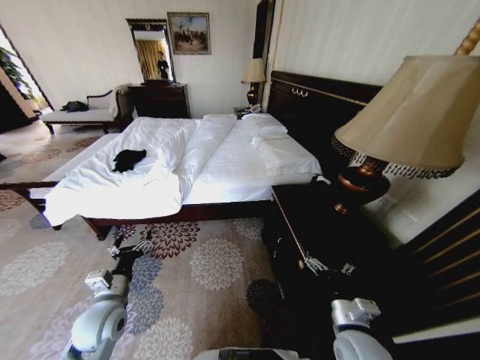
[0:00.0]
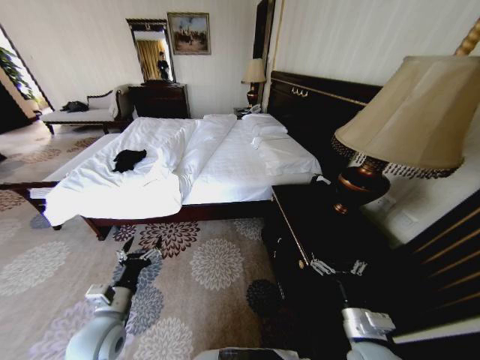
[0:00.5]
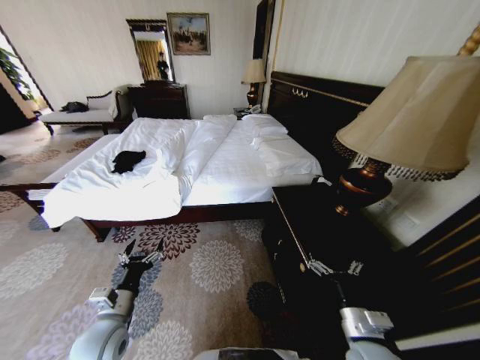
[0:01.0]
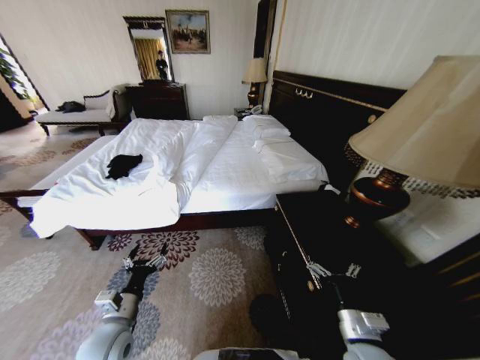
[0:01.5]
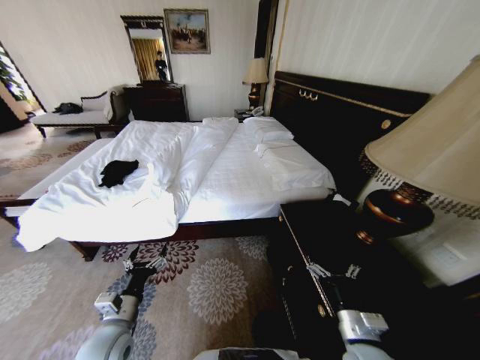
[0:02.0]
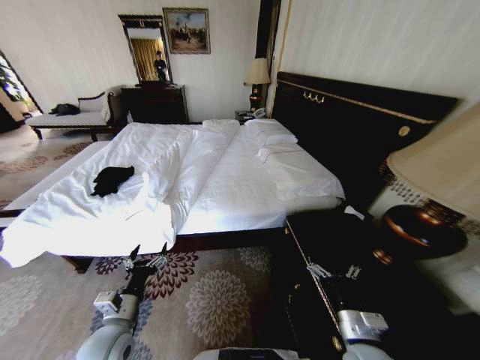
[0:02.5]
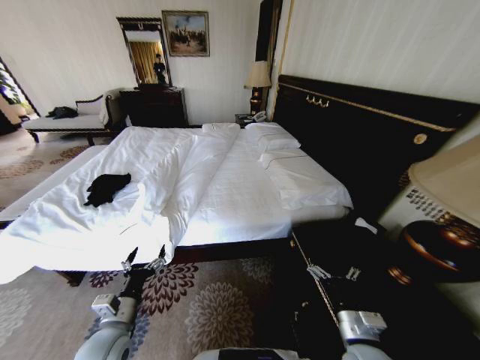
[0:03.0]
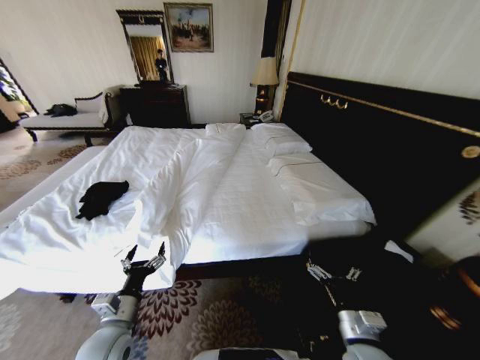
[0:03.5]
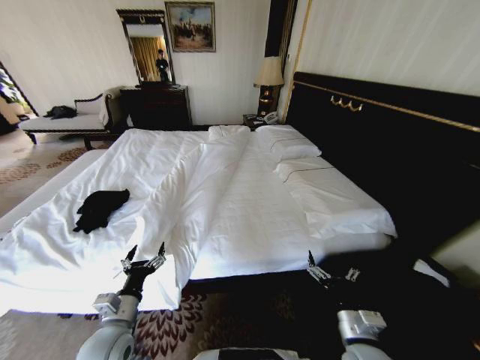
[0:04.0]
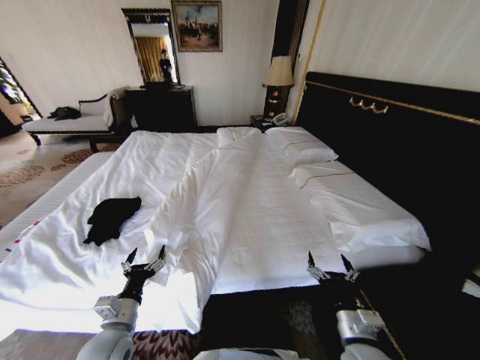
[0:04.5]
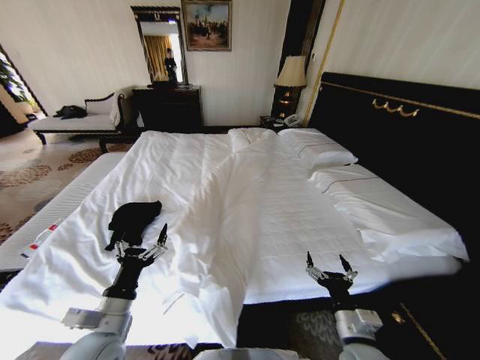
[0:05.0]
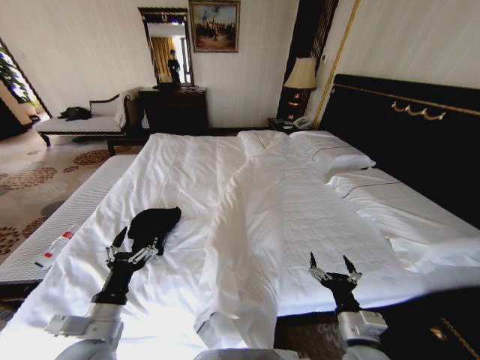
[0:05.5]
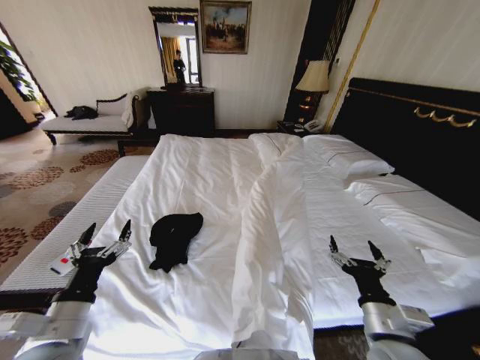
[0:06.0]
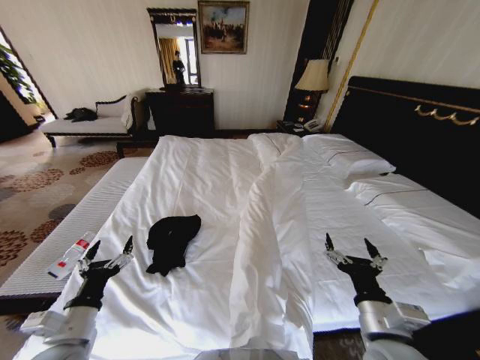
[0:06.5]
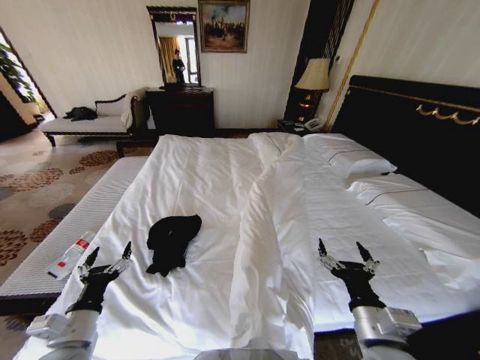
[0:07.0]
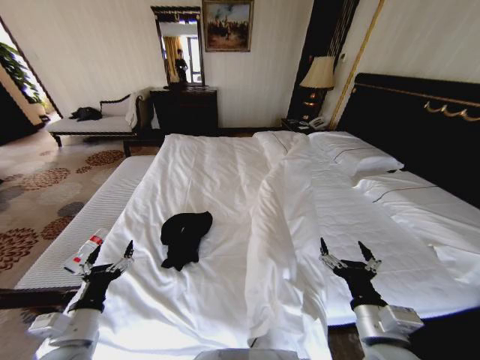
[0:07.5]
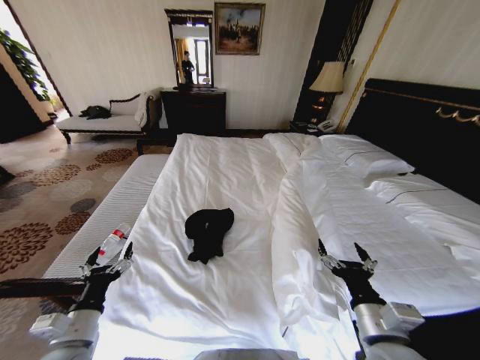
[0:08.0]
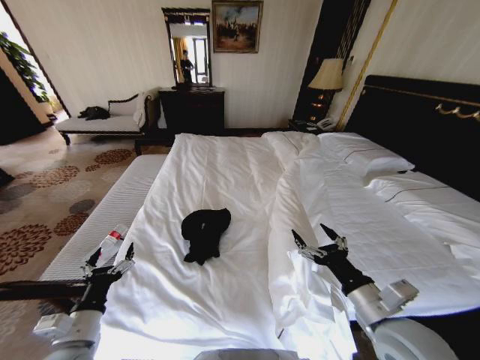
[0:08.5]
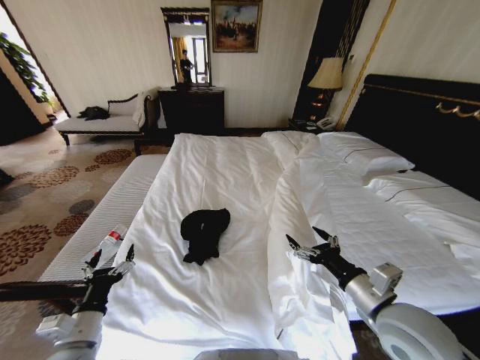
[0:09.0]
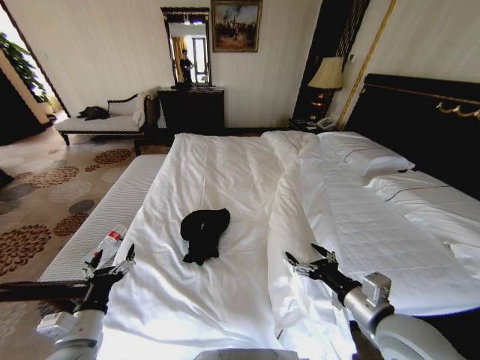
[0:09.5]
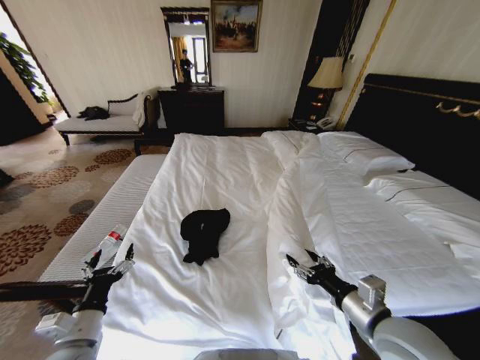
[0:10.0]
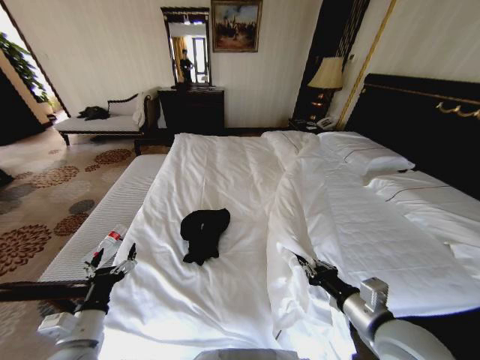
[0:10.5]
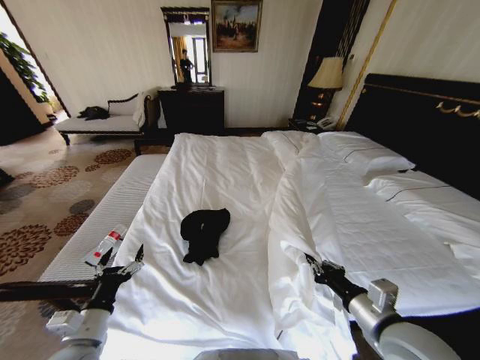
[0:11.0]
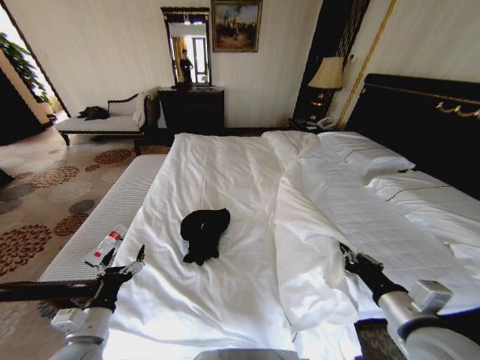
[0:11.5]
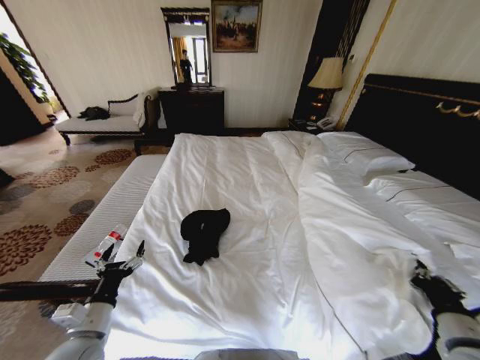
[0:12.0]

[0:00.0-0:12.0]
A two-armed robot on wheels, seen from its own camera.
Task of the whole recording: Fold the clothes on the bed.
0:04.0 to 0:06.0: The left gripper goes approximately 10 cm upward. The right gripper moves upward, some 5 cm.
0:06.0 to 0:08.0: The left gripper is displaced downward by some 10 cm.
0:10.0 to 0:12.0: The right gripper goes approximately 15 cm to the right, and closes its fingers.

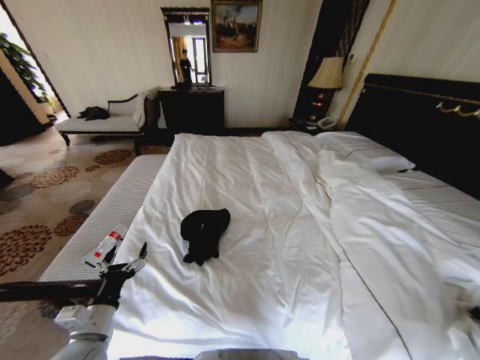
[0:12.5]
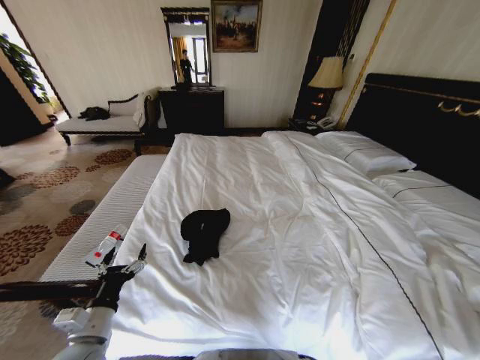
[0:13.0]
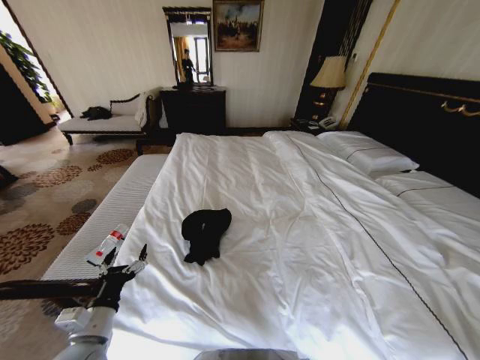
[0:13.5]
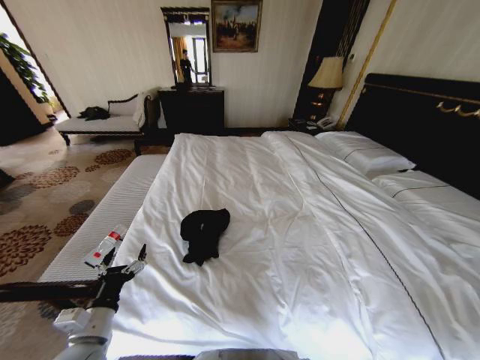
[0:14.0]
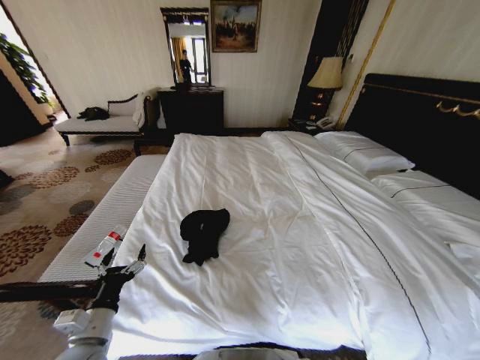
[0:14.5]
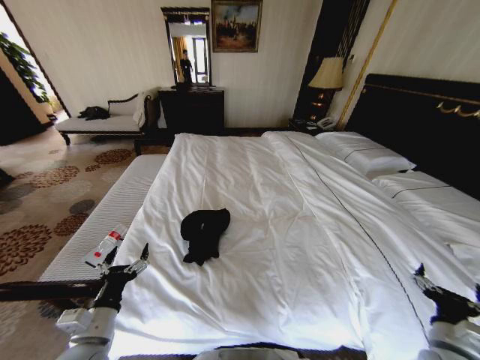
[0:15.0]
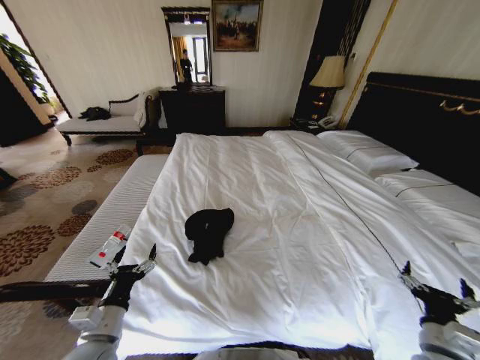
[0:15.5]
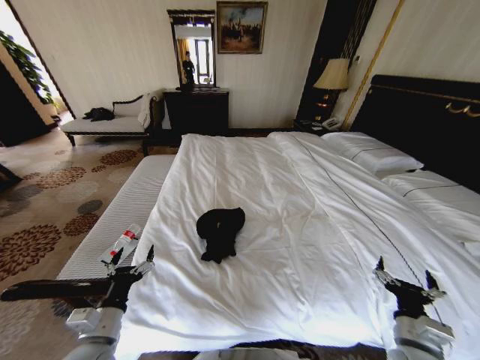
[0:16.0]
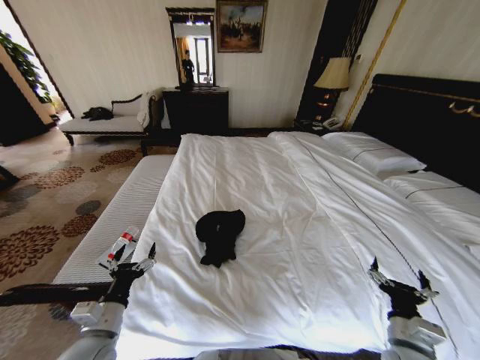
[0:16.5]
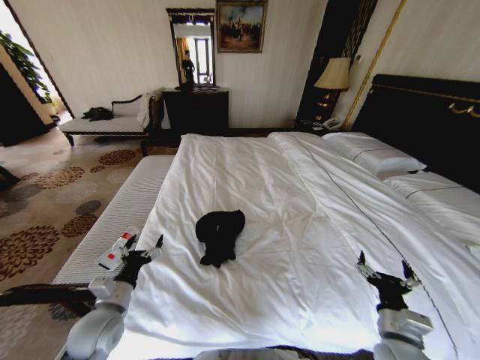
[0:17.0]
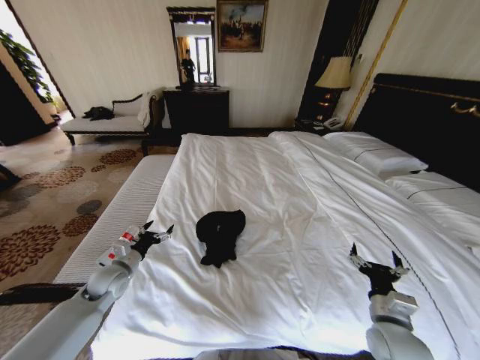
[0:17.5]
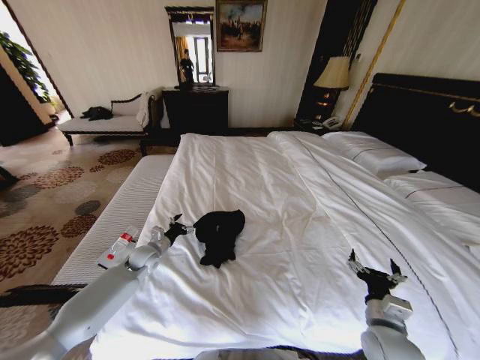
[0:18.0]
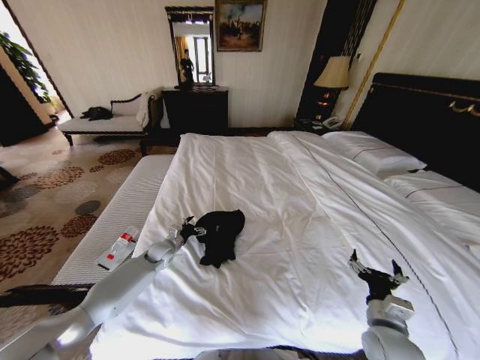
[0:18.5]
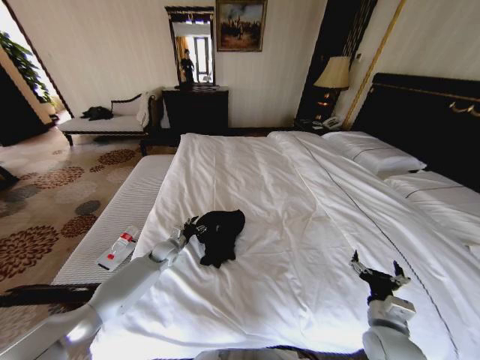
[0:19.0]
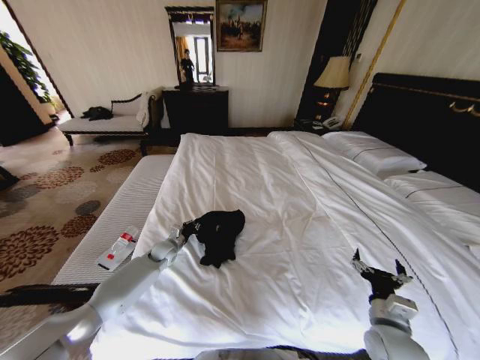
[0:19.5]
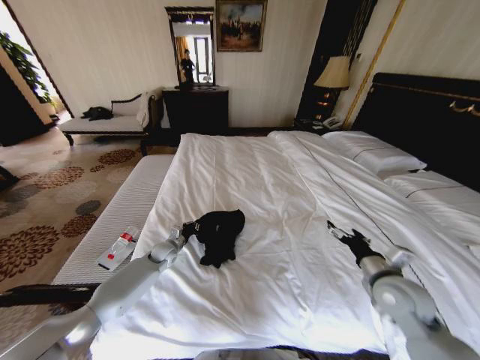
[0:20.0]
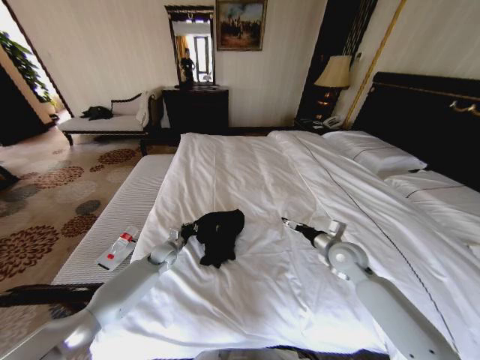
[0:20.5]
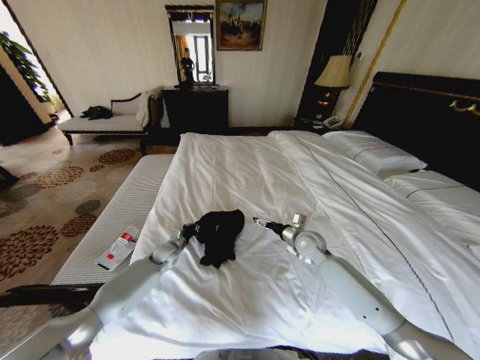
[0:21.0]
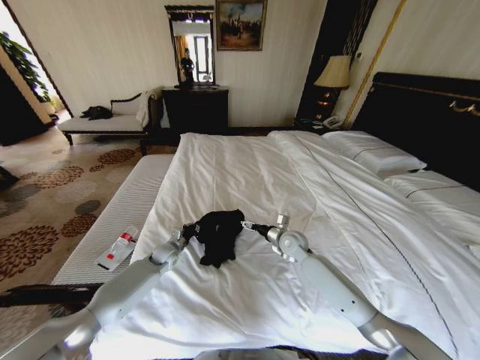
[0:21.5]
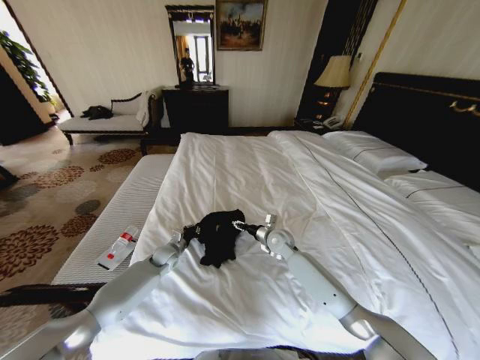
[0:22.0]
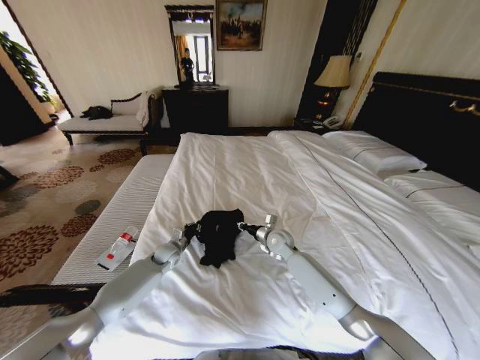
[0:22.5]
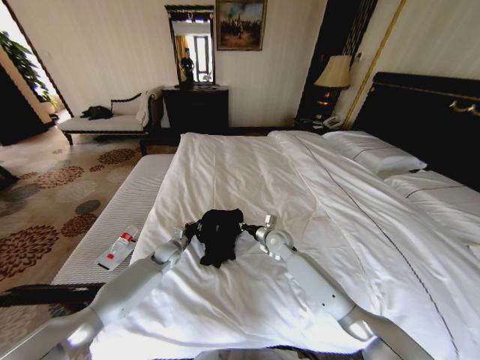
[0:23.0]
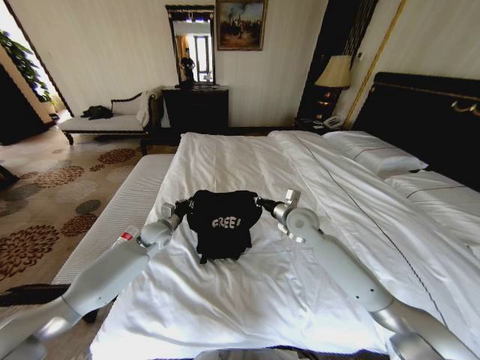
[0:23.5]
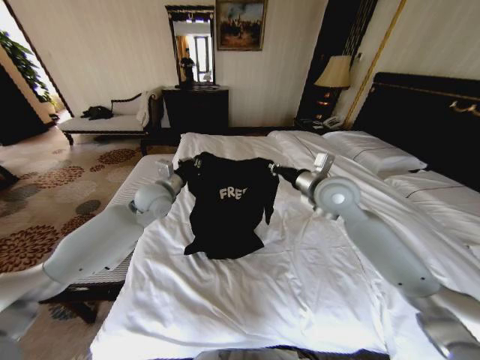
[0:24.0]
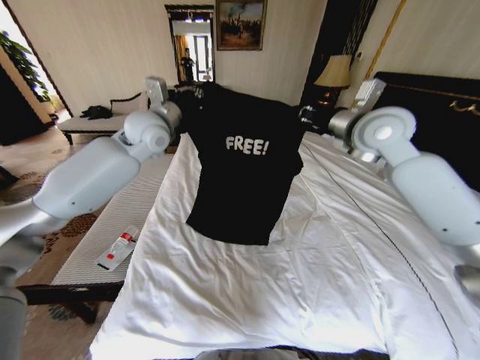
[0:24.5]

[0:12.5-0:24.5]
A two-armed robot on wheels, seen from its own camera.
Task of the whole recording: Fold the clothes on the bed.
0:12.5 to 0:14.5: The right gripper moves to the right and downward, about 10 cm, and opens.
0:14.5 to 0:16.5: The right gripper travels to the left by approximately 25 cm.
0:16.5 to 0:18.5: The left gripper travels forward by approximately 30 cm.
0:18.5 to 0:20.5: The right gripper heads forward, covering roughly 20 cm. Meanwhile the left gripper closes its fingers.
0:20.5 to 0:22.5: The right gripper goes approximately 20 cm to the left and forward, and closes.
0:22.5 to 0:24.5: The grippers both shift upward by roughly 40 cm.

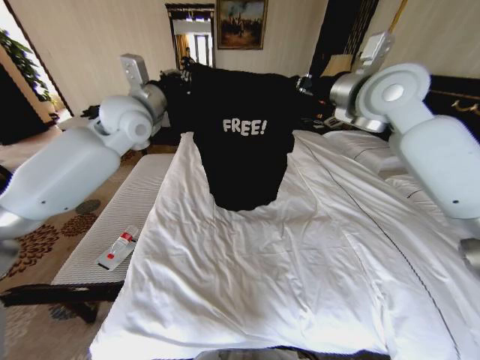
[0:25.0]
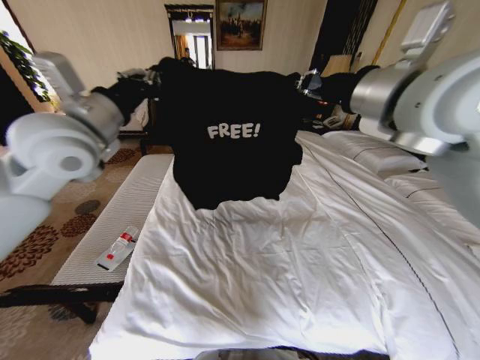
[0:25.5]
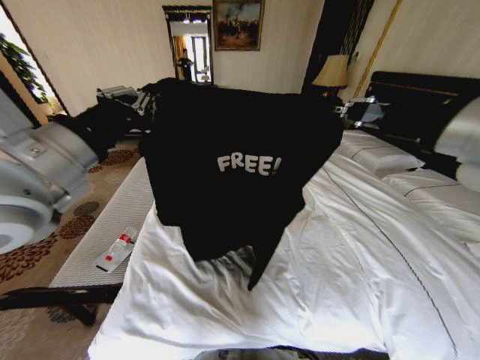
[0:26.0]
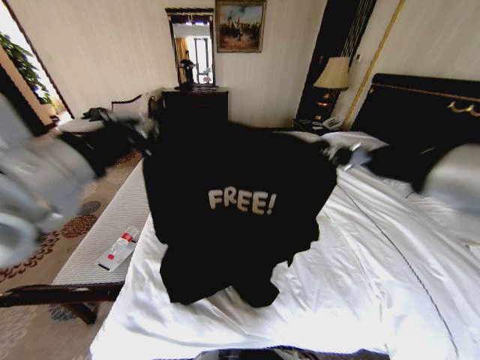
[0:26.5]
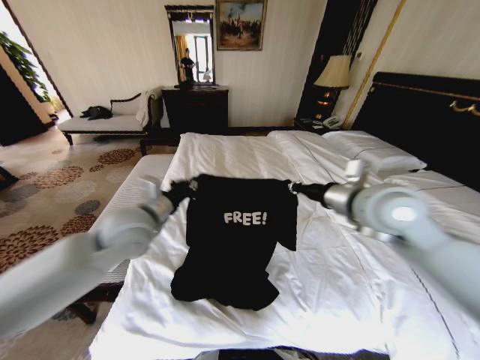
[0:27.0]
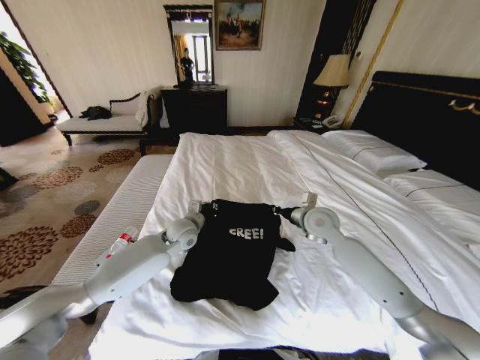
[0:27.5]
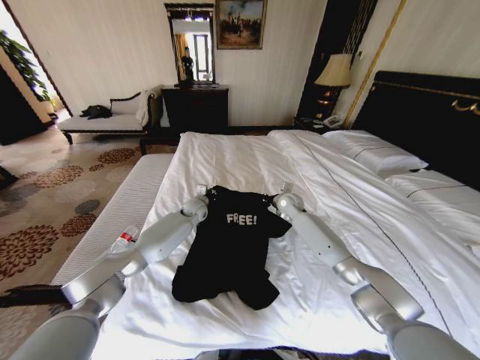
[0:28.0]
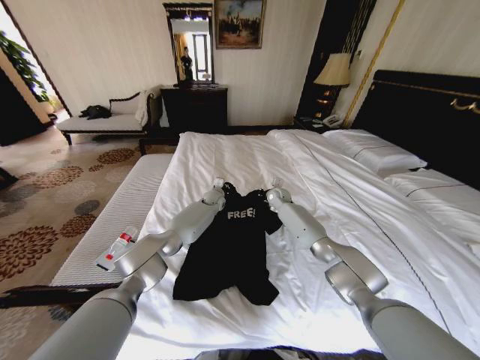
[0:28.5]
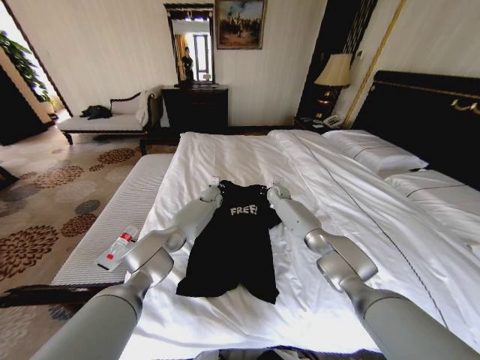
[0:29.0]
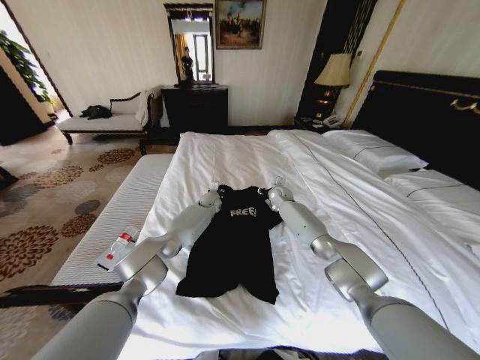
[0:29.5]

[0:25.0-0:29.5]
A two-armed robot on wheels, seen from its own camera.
Task of the whole recording: Fold the clothes on the bed.
0:25.0 to 0:27.0: The two grippers go roughly 20 cm downward and backward.
0:27.0 to 0:29.5: The left gripper travels forward, downward and to the right by about 40 cm, and opens up; the right gripper heads forward and downward, covering some 40 cm, and opens up.
